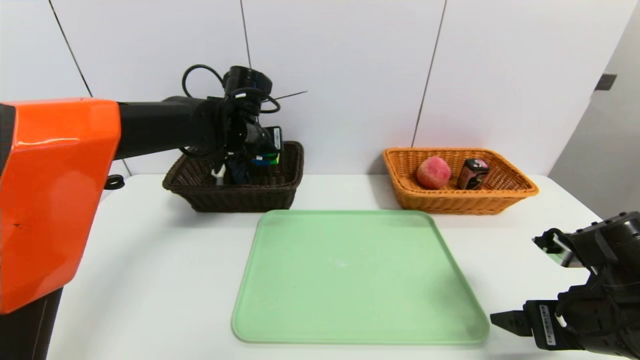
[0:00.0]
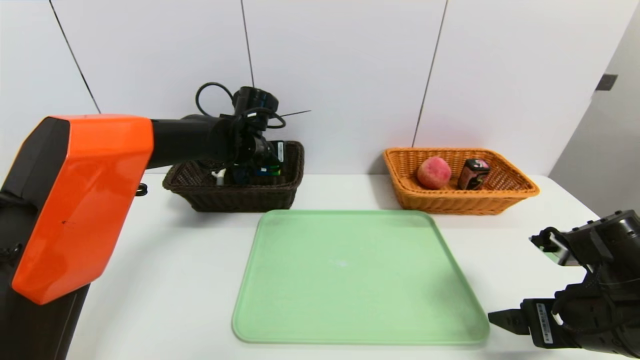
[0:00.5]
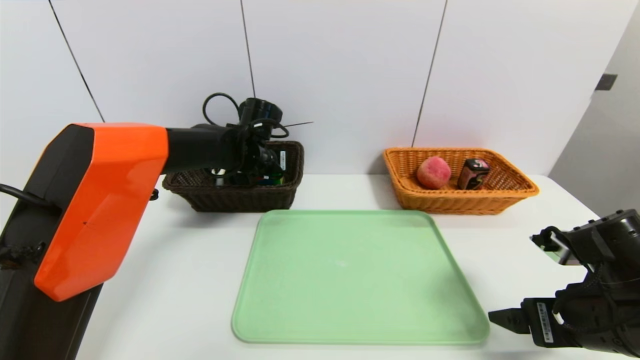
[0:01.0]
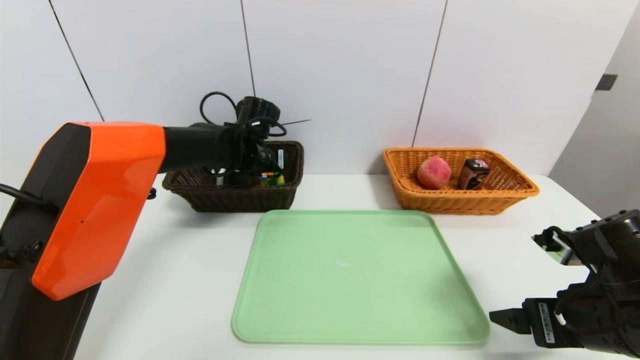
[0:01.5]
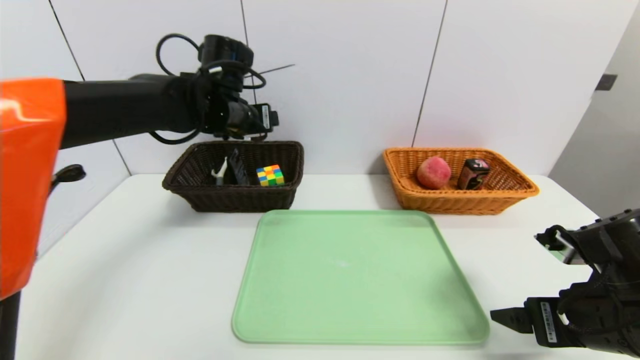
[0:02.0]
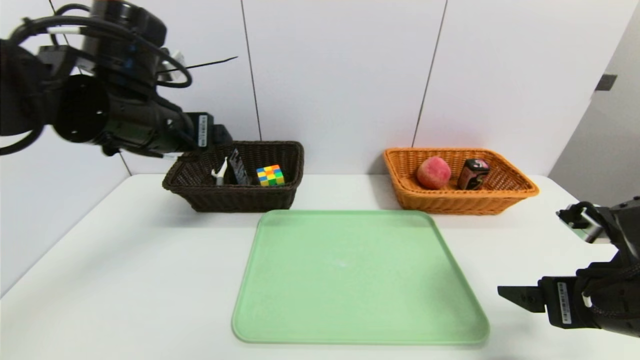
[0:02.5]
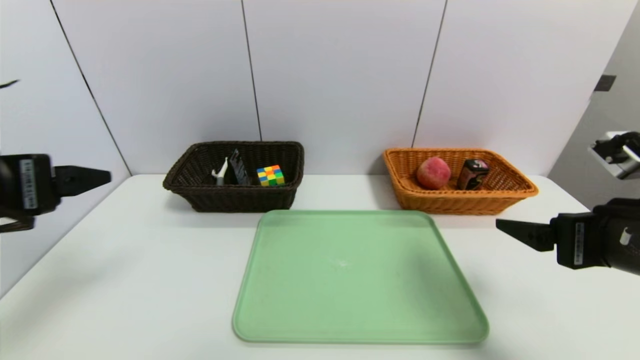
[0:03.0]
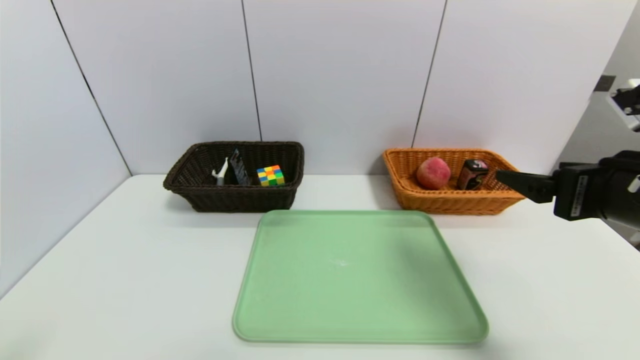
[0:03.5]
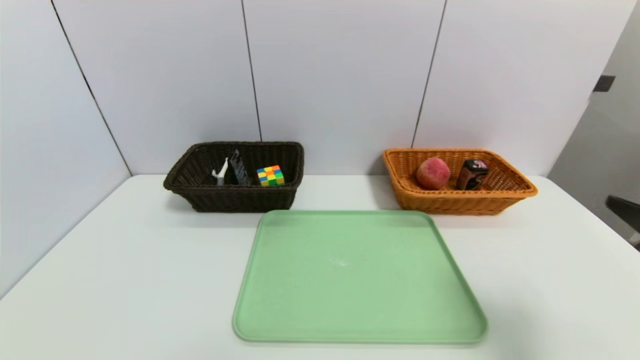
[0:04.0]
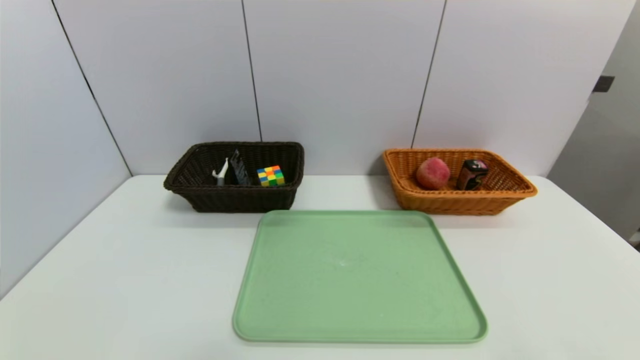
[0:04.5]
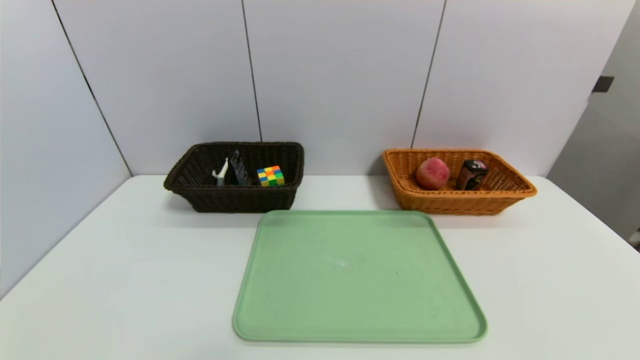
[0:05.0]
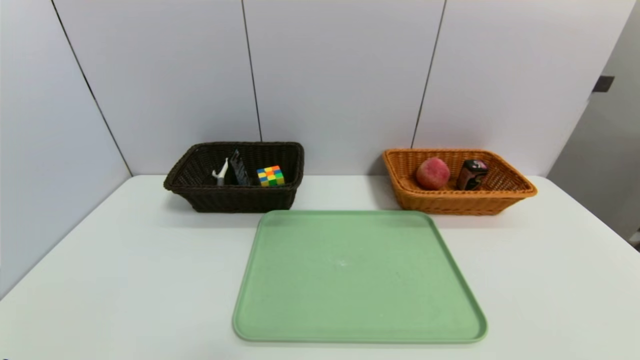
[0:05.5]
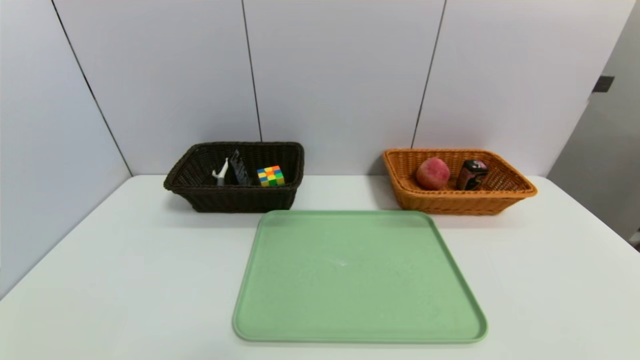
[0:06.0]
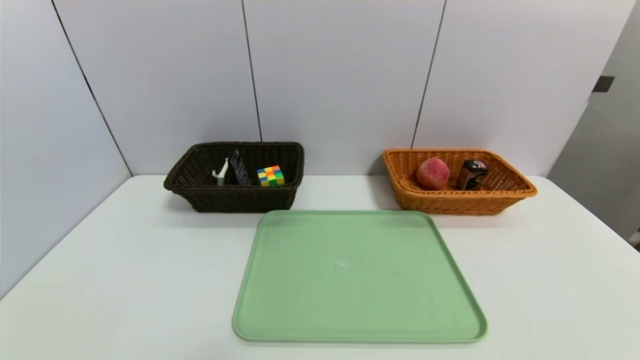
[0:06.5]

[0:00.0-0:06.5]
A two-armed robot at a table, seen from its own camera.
Task of the whole recording: place the food in the right basket with the right gripper, and place the non food items in the left basket with the left gripper.
Step, 0.0 to 2.0 s: Grasp the rubiks cube and put it in the left basket.
0.0 to 2.0 s: The left gripper opens up.
2.0 to 4.5 s: The left gripper heads backward, covering approximately 50 cm; the right gripper shifts some 20 cm backward.

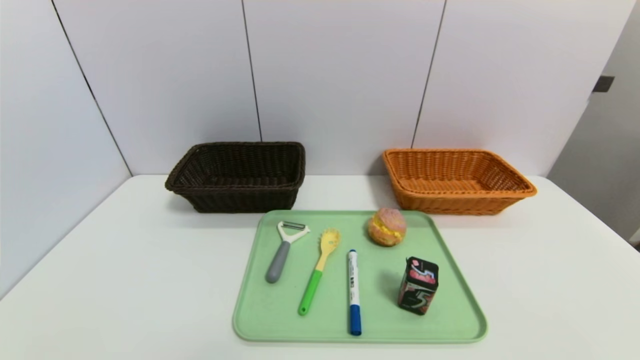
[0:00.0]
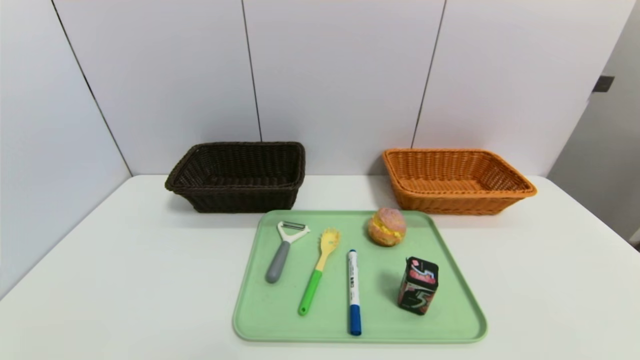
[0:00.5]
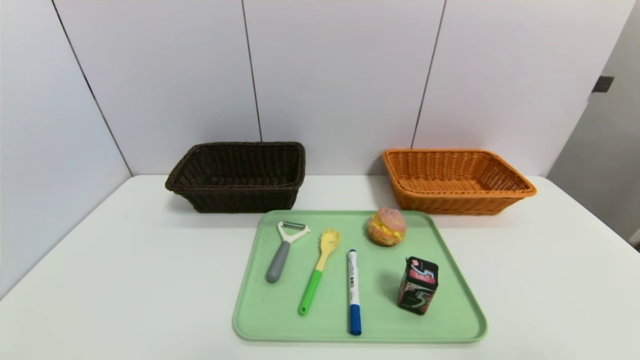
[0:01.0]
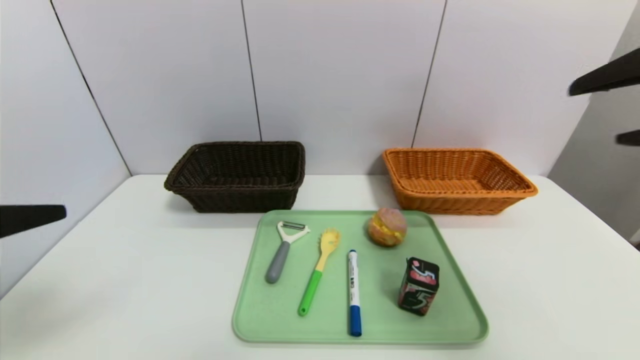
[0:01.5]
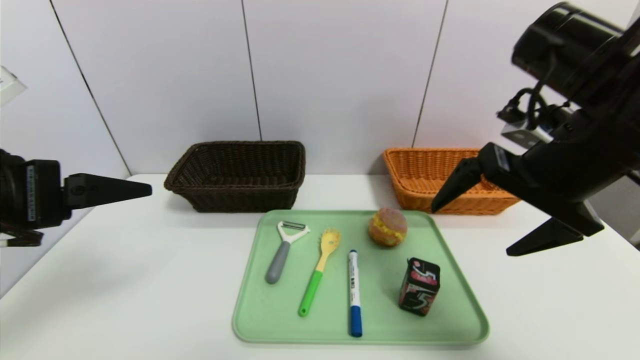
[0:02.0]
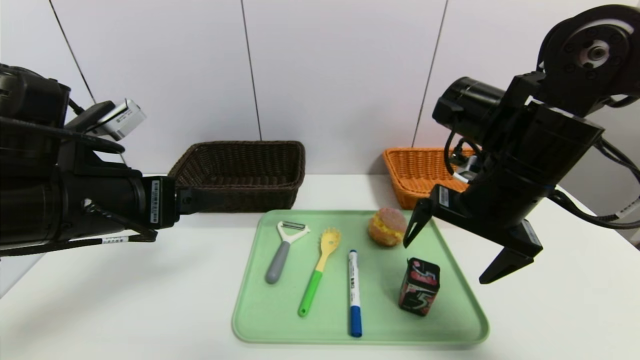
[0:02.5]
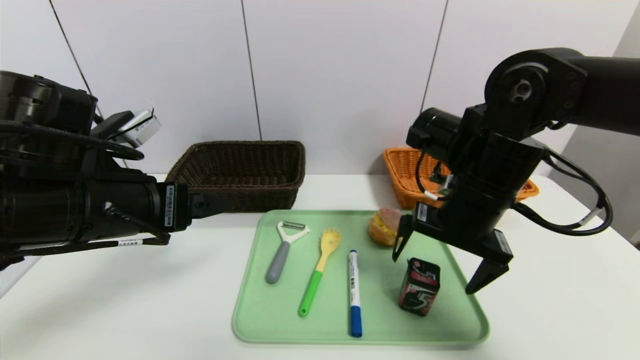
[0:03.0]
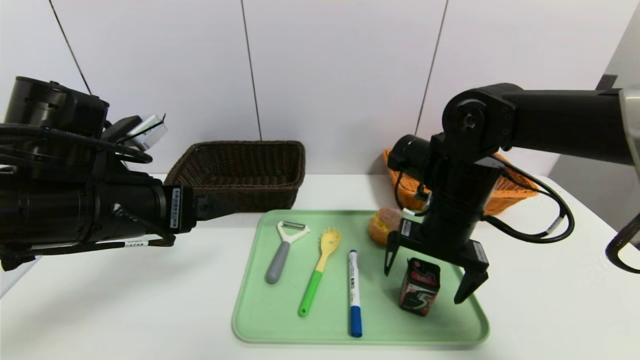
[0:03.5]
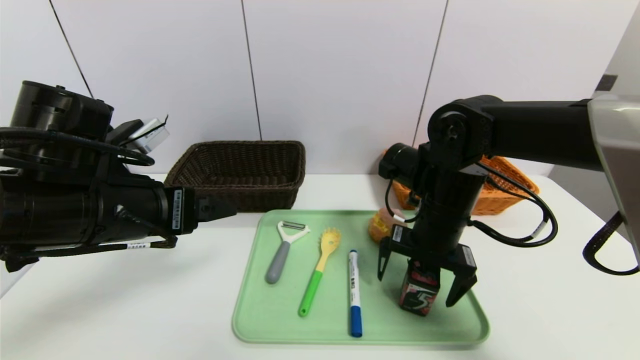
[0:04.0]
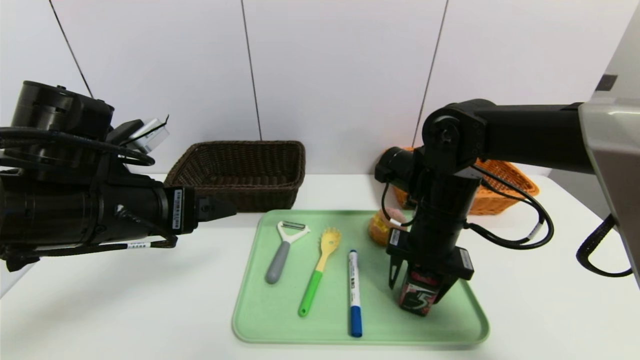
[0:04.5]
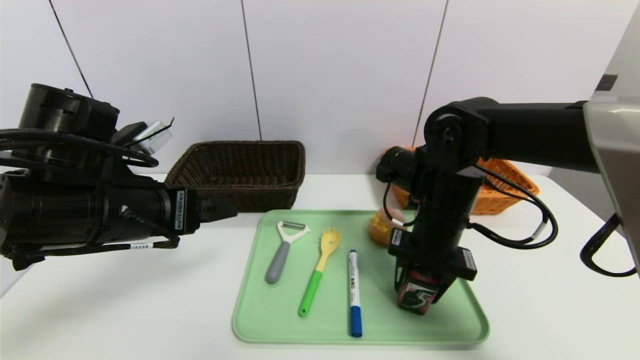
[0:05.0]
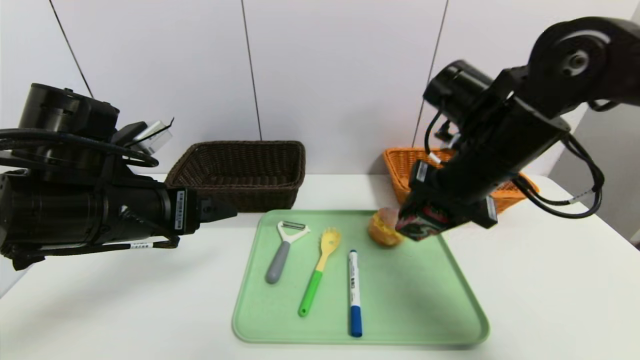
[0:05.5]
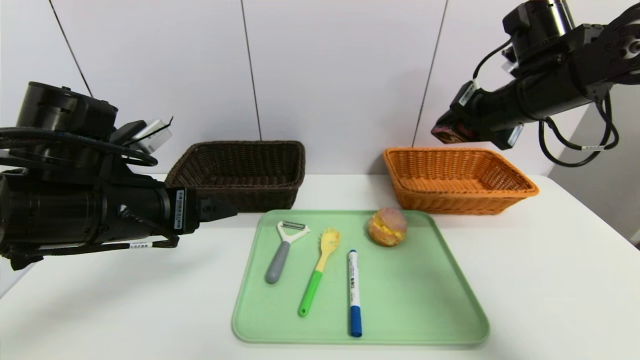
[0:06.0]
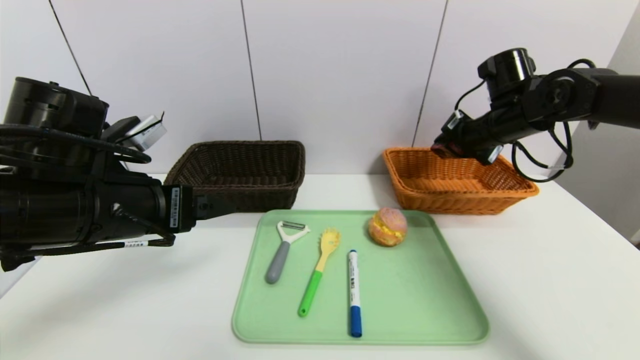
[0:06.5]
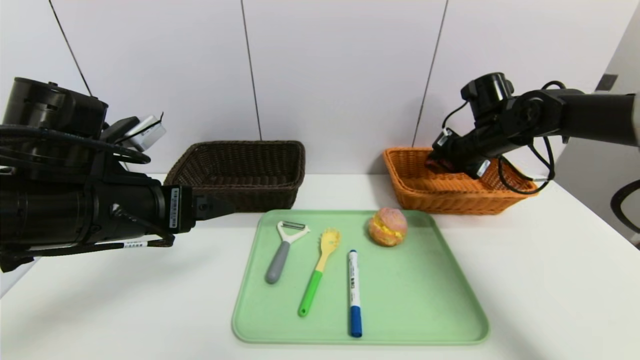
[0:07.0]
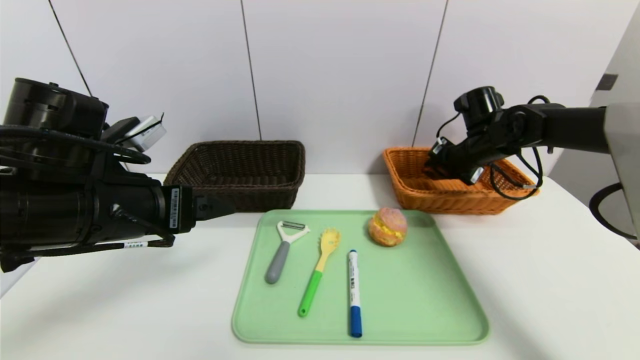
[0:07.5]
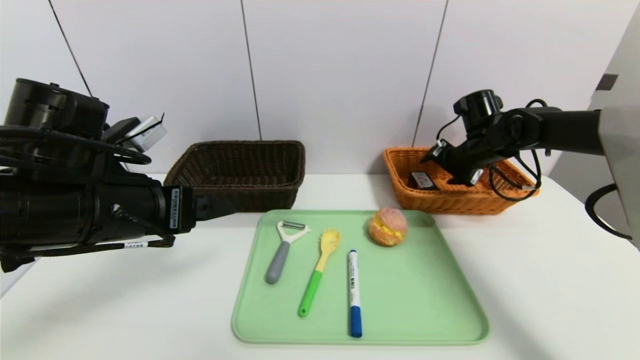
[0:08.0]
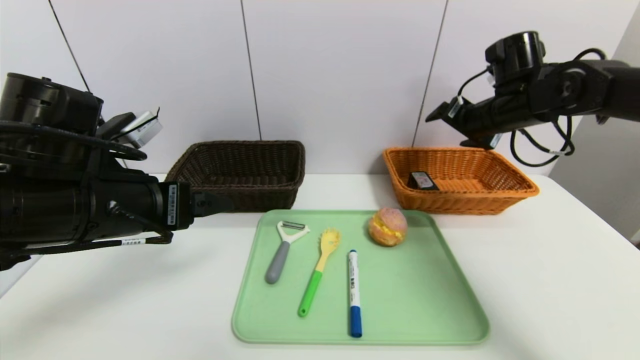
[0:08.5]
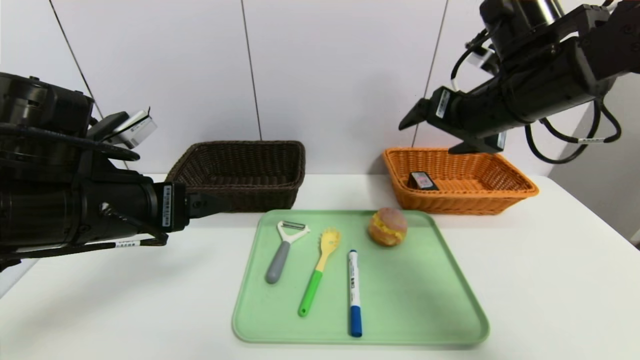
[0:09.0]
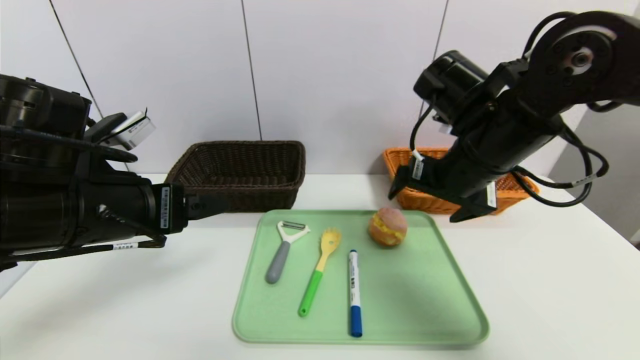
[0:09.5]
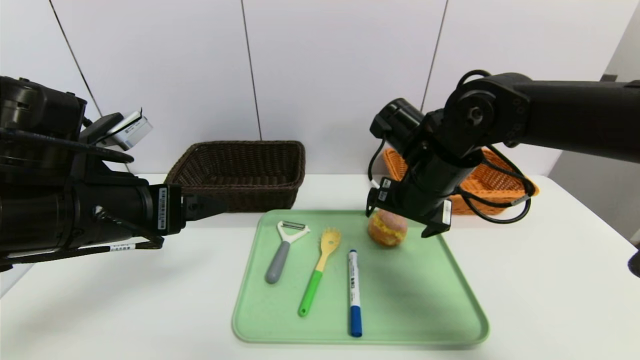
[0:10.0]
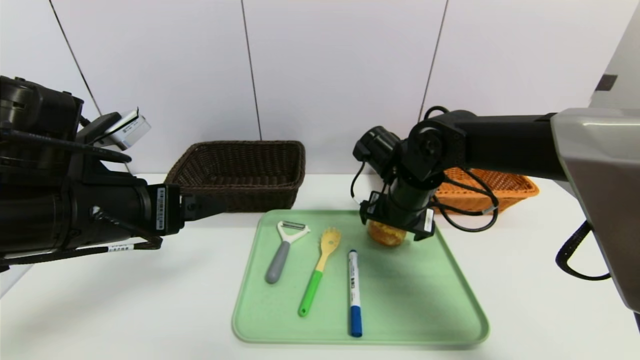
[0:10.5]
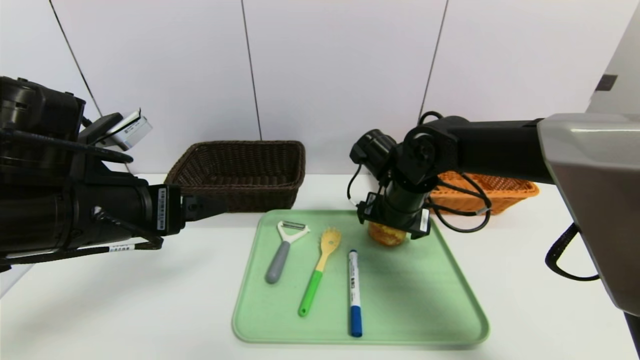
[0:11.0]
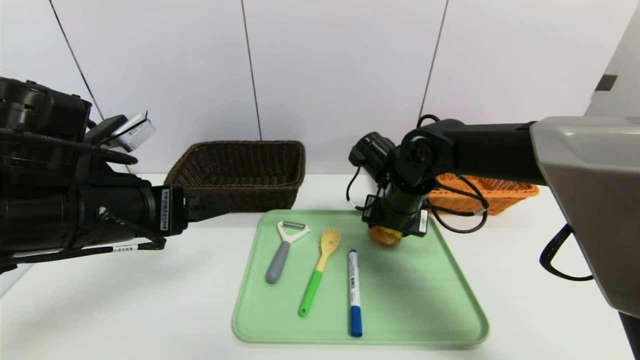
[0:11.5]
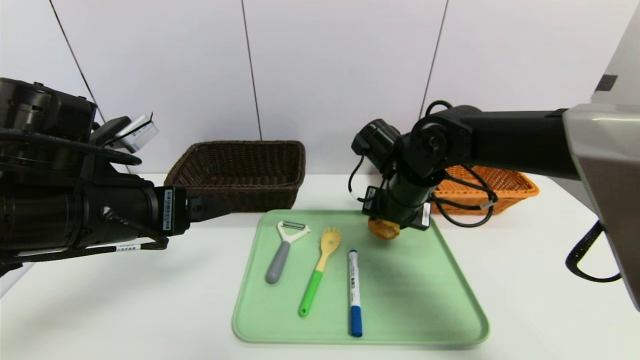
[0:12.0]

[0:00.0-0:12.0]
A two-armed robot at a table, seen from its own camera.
Task of the whole recording: place the food in the right basket with the right gripper, and place the non food items in the left basket with the left gripper.
Step, 0.0 to 8.0 s: Grasp the square chewing gum and put it in the right basket.
0.0 to 2.0 s: The right gripper heads forward, upward and to the left, covering approximately 35 cm. Meanwhile the left gripper moves upward and forward, roughly 30 cm.
2.0 to 4.0 s: The right gripper moves downward, forward and to the left, approximately 15 cm, while the left gripper moves to the right, forward and downward, approximately 10 cm.
4.0 to 6.0 s: The right gripper heads upward and to the right, covering approximately 15 cm, and closes its fingers.
6.0 to 8.0 s: The right gripper travels downward and forward by approximately 15 cm, and opens.
8.0 to 10.0 s: The right gripper shifts approximately 20 cm to the left and backward, and opens its fingers.
10.0 to 12.0 s: The right gripper closes up.

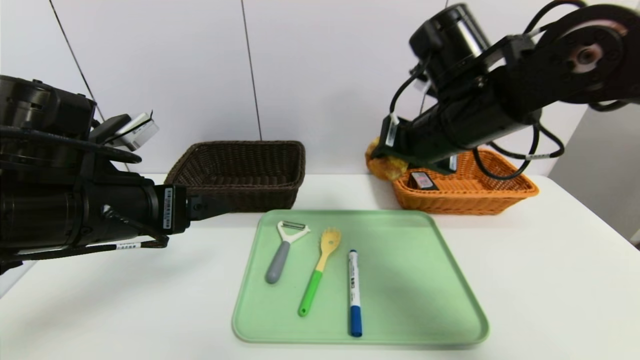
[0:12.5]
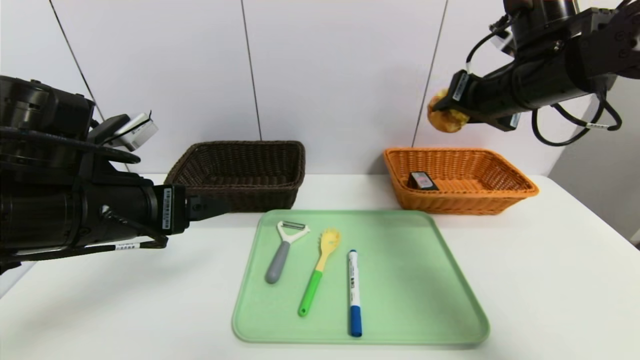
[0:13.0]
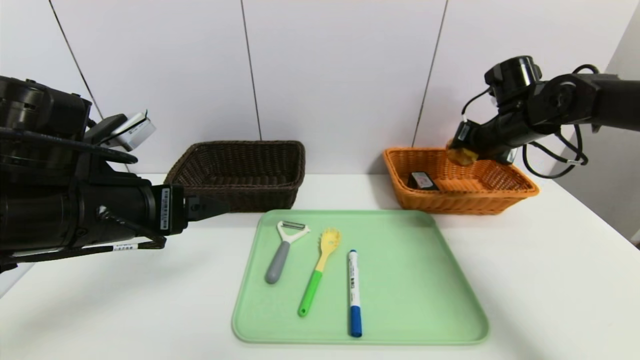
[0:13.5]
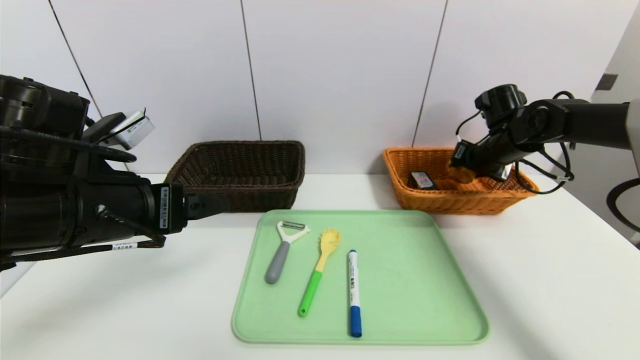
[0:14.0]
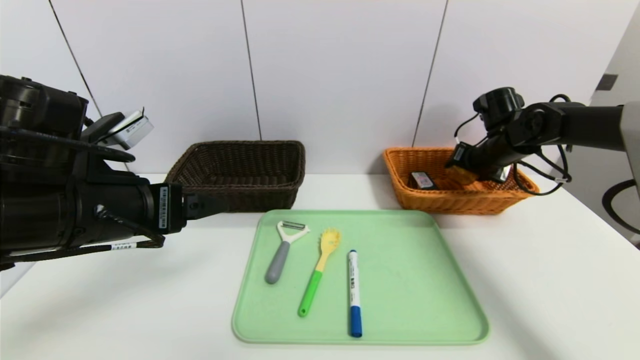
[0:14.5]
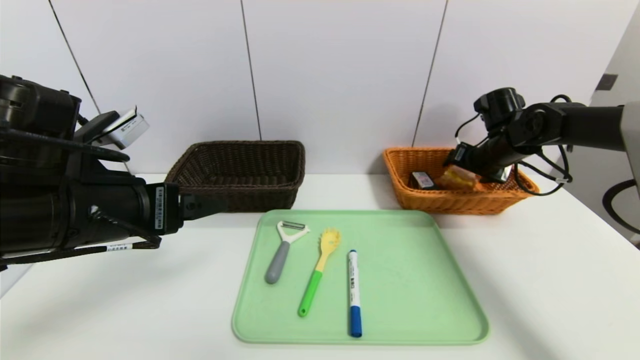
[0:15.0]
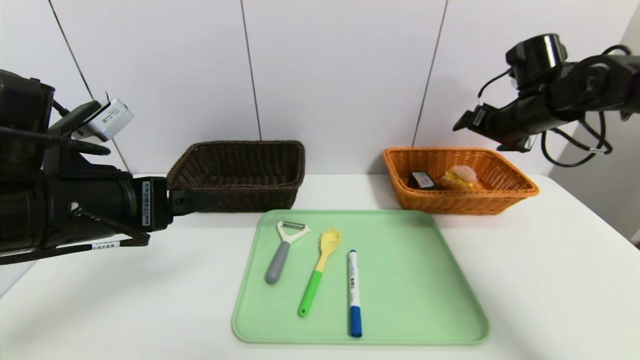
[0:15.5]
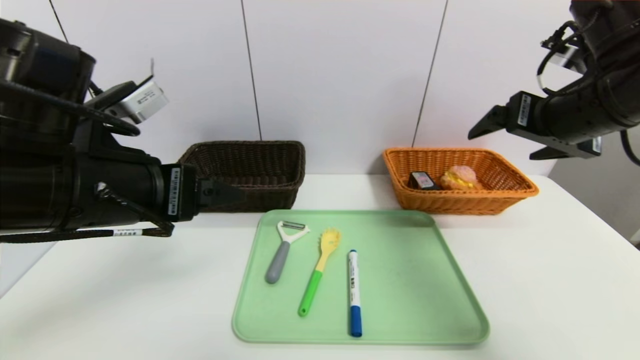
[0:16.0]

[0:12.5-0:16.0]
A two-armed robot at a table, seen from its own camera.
Task of the whole recording: place the food in the right basket with the right gripper, and place the non food items in the left basket with the left gripper.
Step, 12.5 to 15.0 s: Grasp the round bread and put it in the right basket.
12.5 to 14.5 s: The right gripper shifts roughly 25 cm to the right, forward and downward, and opens.
14.5 to 16.0 s: The right gripper travels backward and upward by roughly 25 cm, and opens its fingers.
